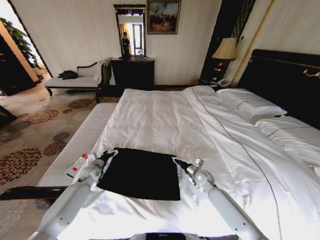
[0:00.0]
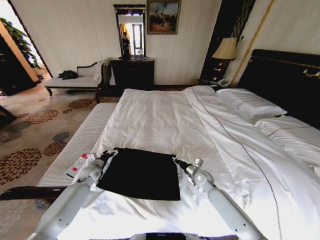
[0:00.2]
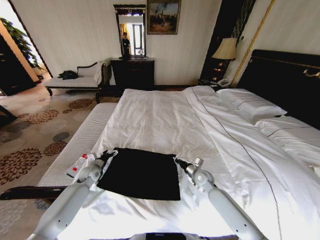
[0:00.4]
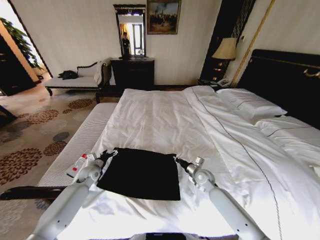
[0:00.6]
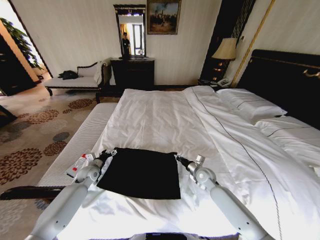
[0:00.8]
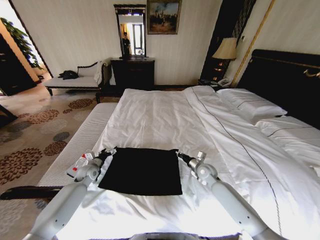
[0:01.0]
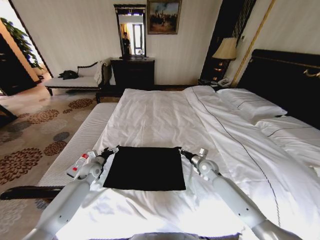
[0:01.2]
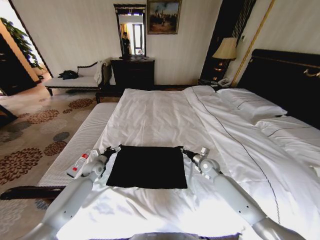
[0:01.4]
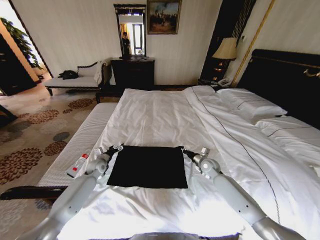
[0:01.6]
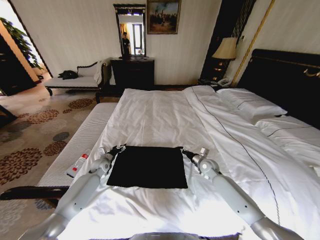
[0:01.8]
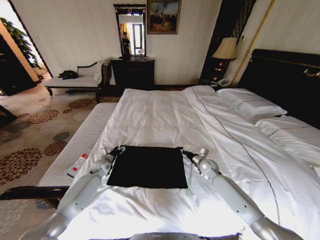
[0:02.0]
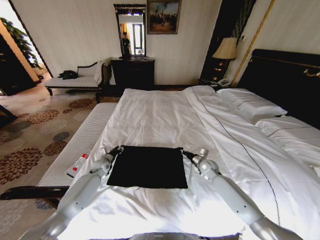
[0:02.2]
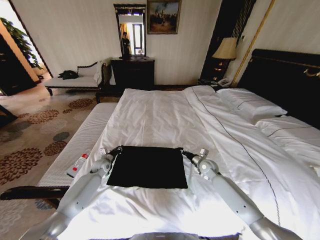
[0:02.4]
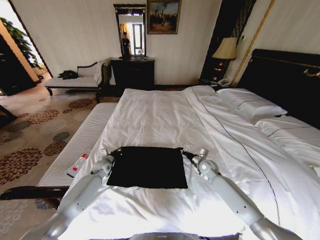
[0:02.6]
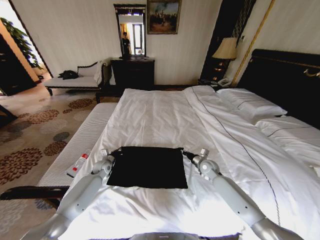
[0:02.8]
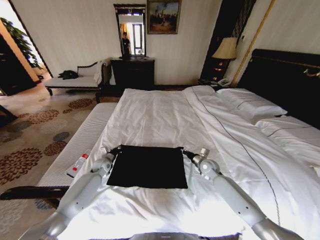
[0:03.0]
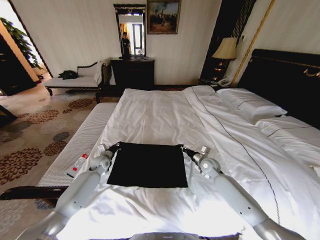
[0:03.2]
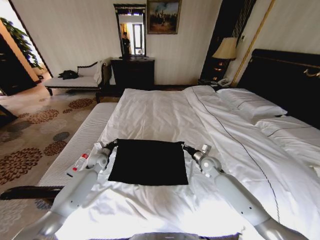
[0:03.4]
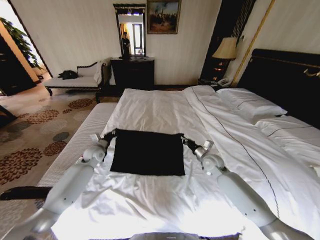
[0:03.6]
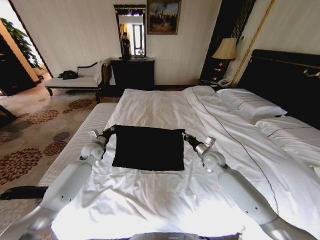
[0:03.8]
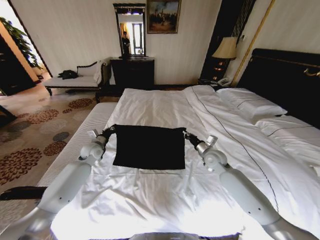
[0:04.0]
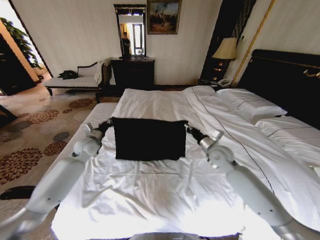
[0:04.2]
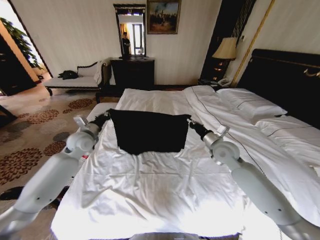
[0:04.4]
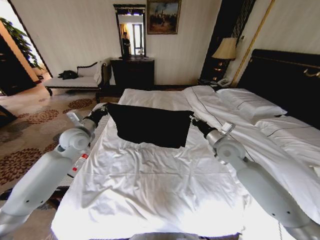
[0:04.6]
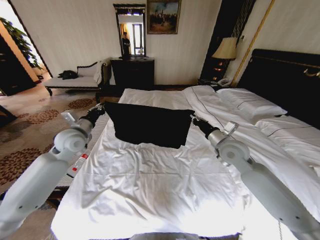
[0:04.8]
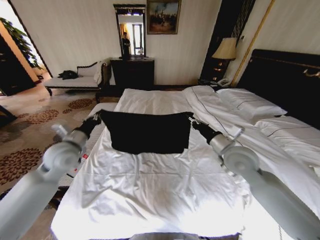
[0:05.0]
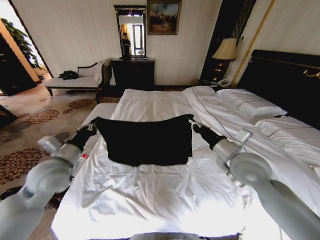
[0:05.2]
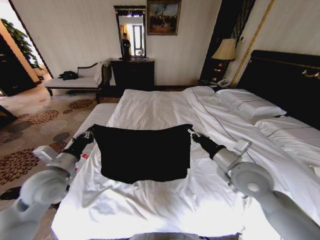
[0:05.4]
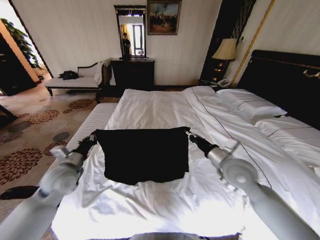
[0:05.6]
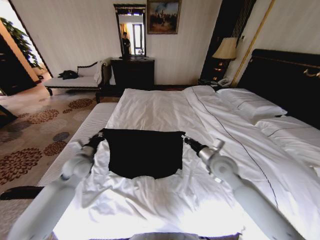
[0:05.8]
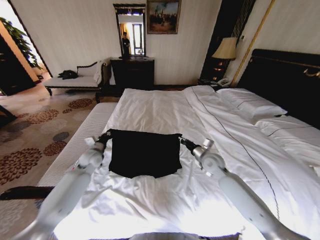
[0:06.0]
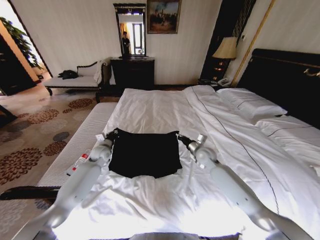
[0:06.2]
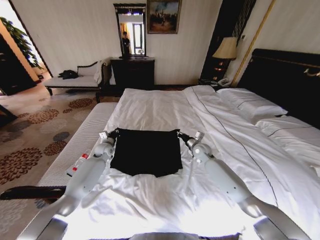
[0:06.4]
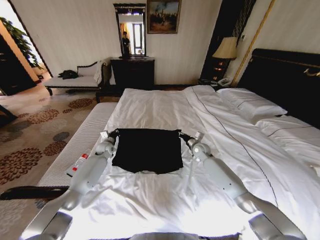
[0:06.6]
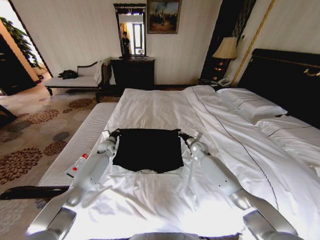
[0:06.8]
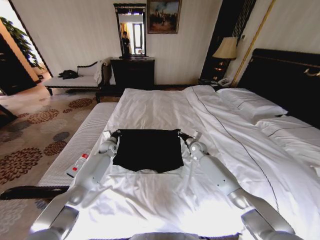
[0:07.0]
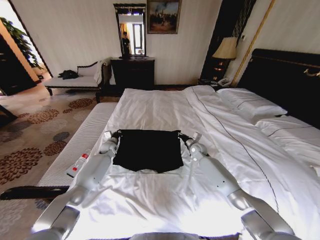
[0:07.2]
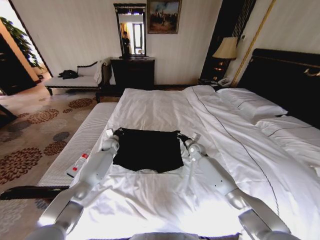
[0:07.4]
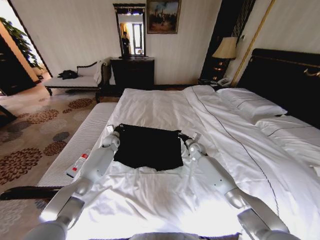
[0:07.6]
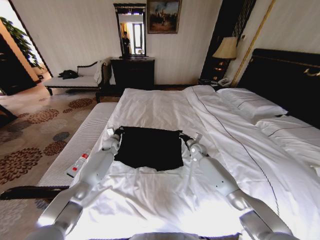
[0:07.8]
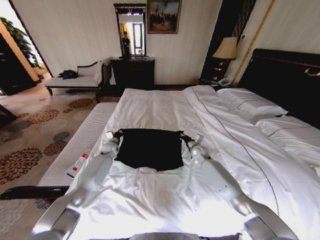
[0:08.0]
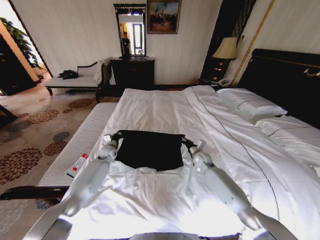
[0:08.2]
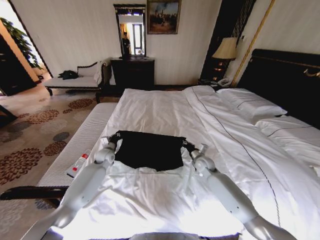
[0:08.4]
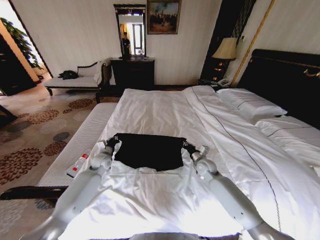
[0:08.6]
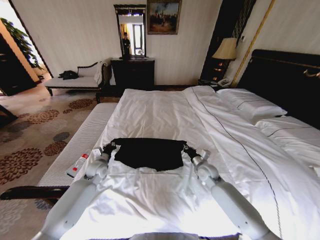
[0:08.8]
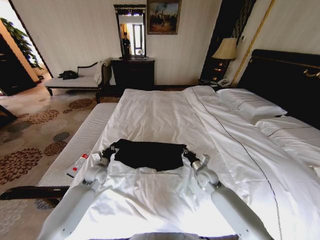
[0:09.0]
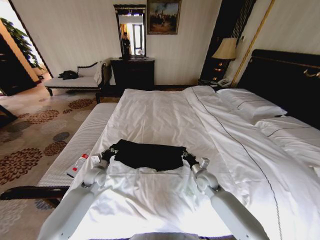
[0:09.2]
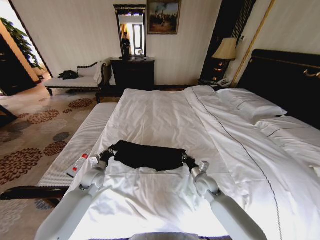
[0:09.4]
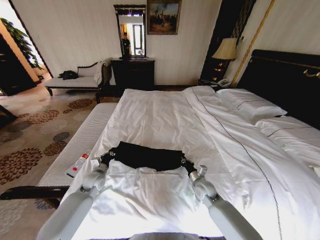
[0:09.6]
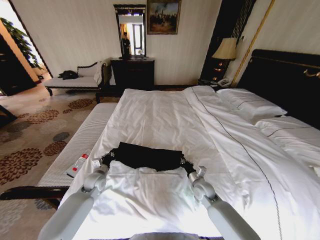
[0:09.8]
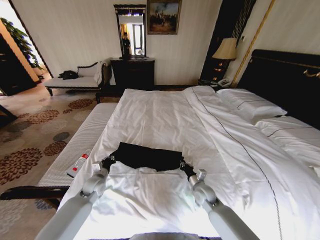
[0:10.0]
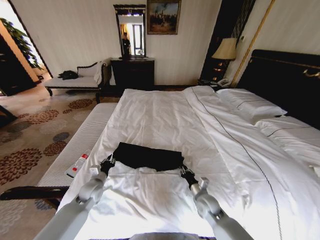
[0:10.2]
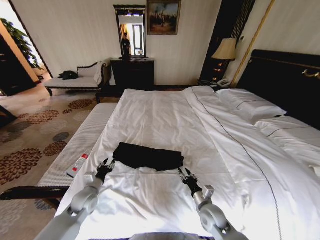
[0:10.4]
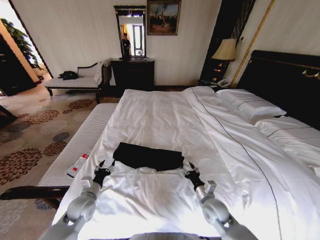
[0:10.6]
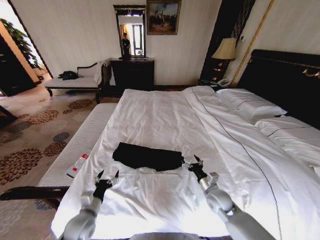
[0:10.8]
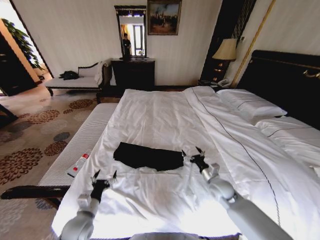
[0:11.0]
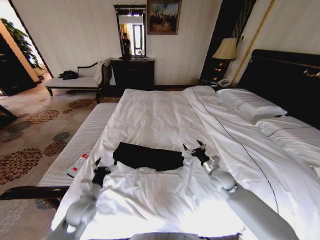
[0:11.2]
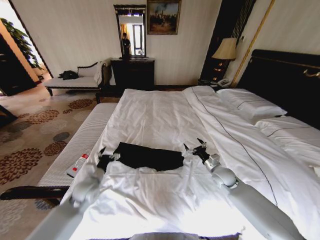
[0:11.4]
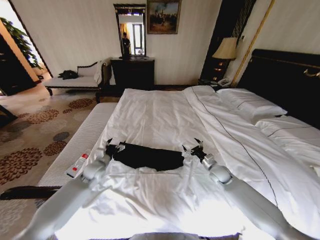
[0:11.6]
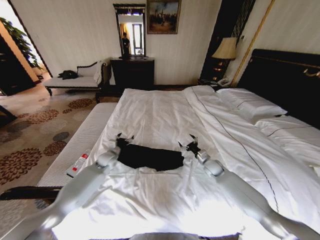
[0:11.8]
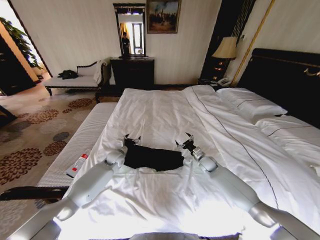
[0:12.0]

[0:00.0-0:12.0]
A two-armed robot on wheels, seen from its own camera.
Task of the whole recording: Fold the clothes on the bed.
0:00.0 to 0:01.6: The right gripper is displaced forward by some 5 cm, and closes.
0:01.6 to 0:03.0: The left gripper closes its fingers.
0:03.0 to 0:04.4: Both grippers move upward, roughly 20 cm.
0:04.4 to 0:06.0: The left gripper goes about 10 cm downward, and reaches roughly 20 cm backward, then returns. Meanwhile the right gripper is displaced downward by about 10 cm.
0:06.0 to 0:07.6: The right gripper moves forward and downward, roughly 15 cm. Meanwhile the left gripper heads forward, covering some 15 cm.
0:07.6 to 0:09.0: Both grippers move backward, about 15 cm.
0:09.0 to 0:10.4: Both grippers move backward, some 15 cm. The right gripper opens its fingers. The left gripper opens.
0:10.4 to 0:12.0: The left gripper goes about 25 cm forward and to the right, and opens up, while the right gripper goes approximately 25 cm forward, and opens.

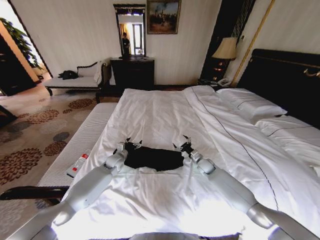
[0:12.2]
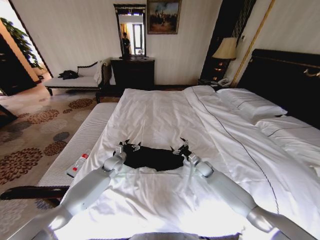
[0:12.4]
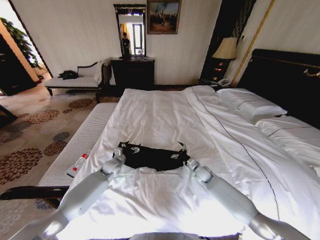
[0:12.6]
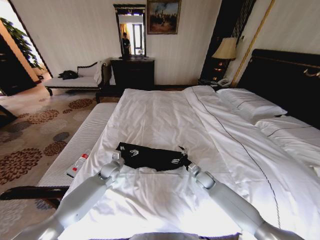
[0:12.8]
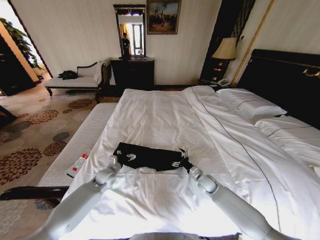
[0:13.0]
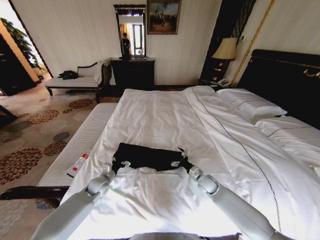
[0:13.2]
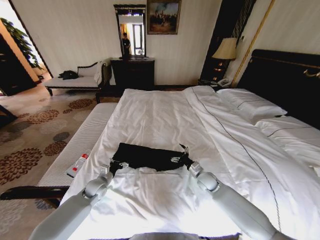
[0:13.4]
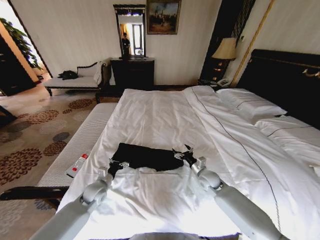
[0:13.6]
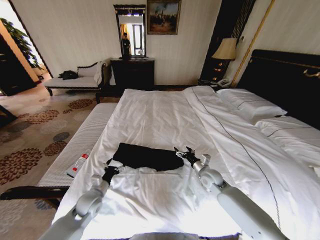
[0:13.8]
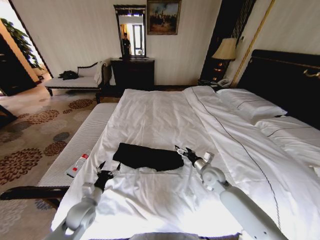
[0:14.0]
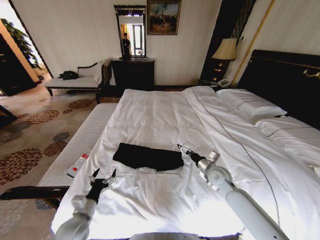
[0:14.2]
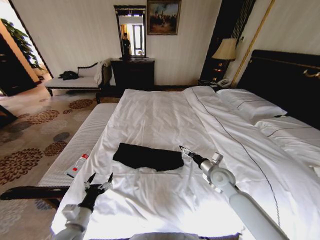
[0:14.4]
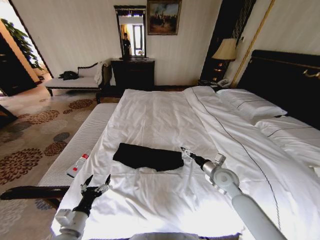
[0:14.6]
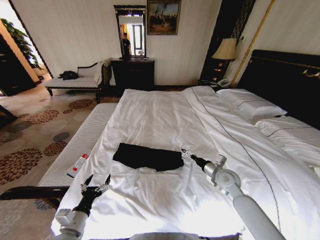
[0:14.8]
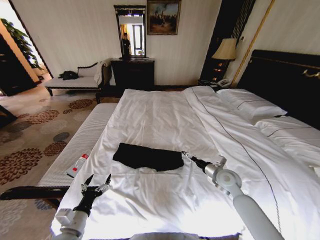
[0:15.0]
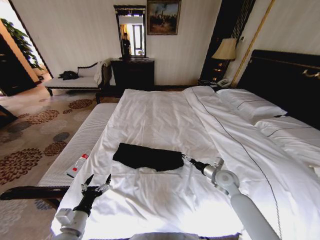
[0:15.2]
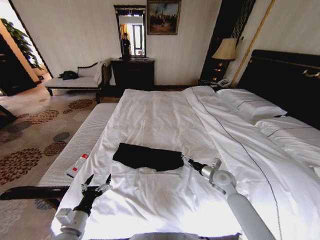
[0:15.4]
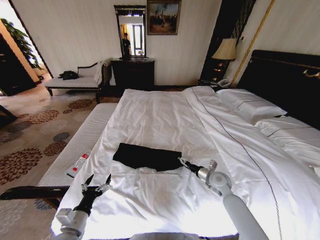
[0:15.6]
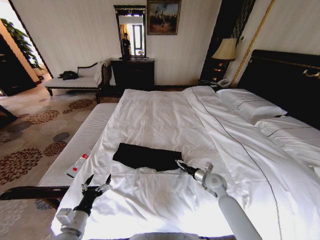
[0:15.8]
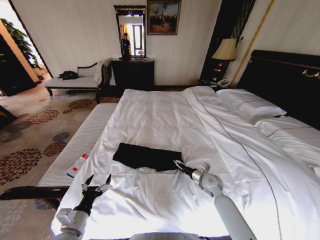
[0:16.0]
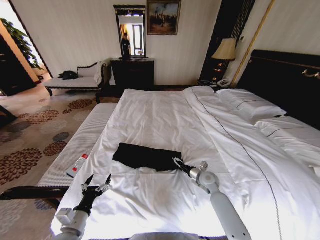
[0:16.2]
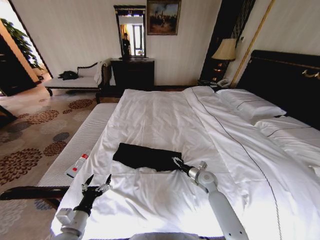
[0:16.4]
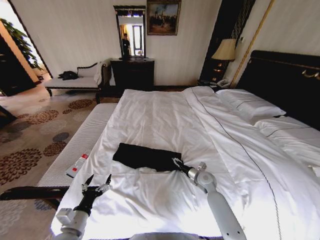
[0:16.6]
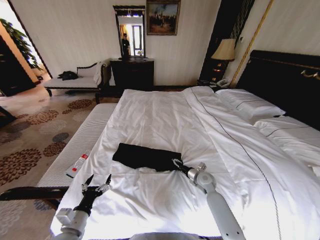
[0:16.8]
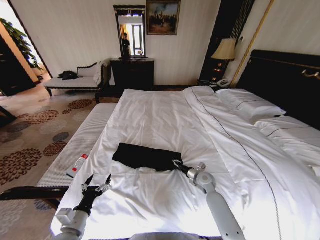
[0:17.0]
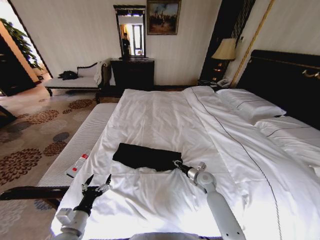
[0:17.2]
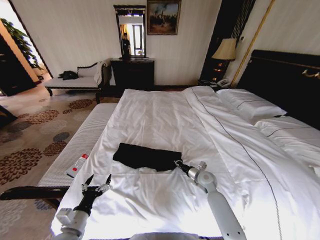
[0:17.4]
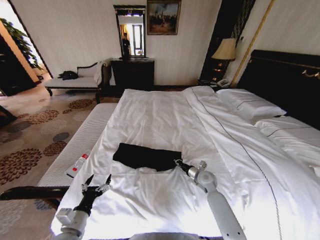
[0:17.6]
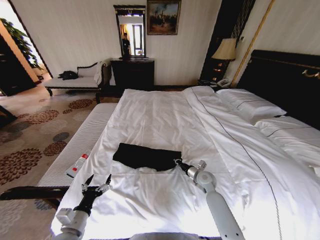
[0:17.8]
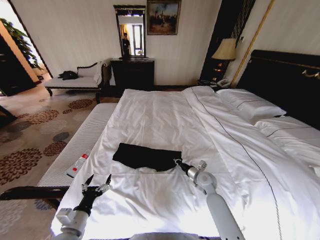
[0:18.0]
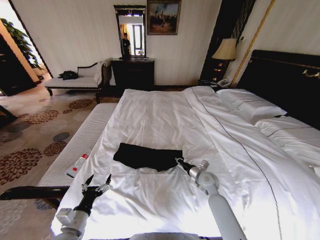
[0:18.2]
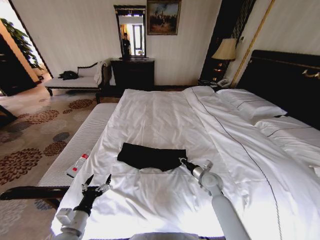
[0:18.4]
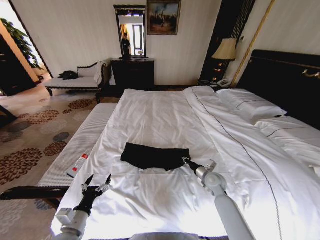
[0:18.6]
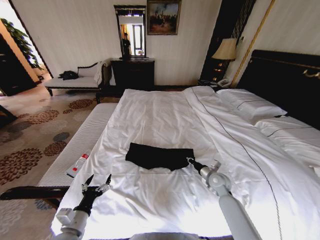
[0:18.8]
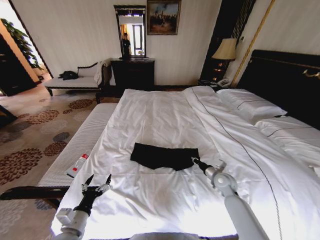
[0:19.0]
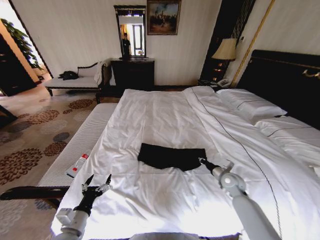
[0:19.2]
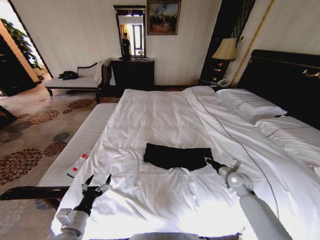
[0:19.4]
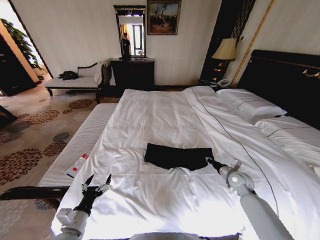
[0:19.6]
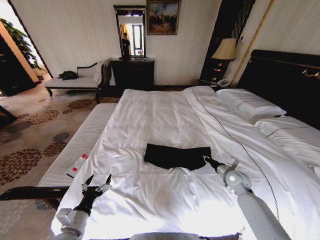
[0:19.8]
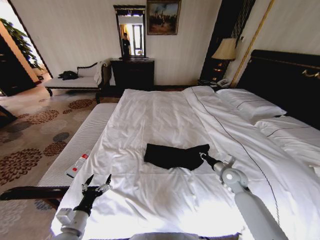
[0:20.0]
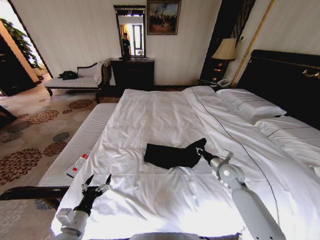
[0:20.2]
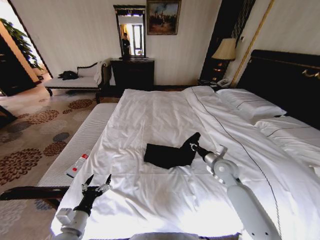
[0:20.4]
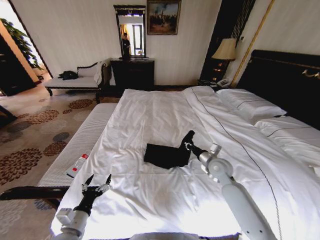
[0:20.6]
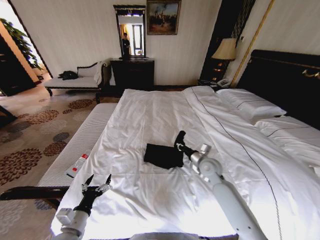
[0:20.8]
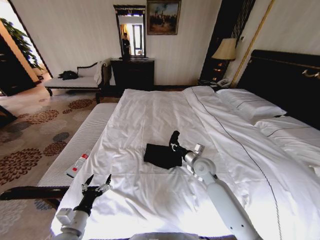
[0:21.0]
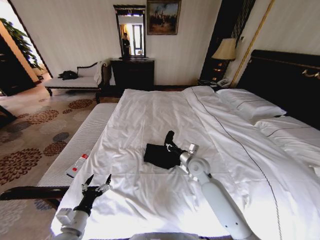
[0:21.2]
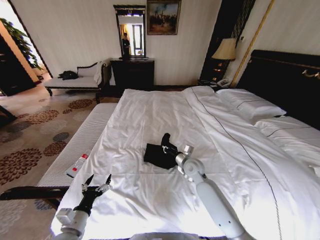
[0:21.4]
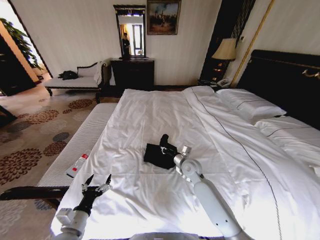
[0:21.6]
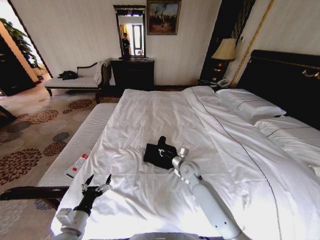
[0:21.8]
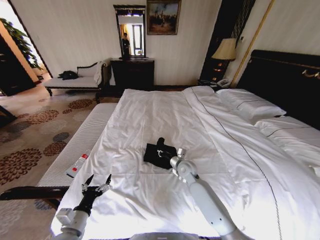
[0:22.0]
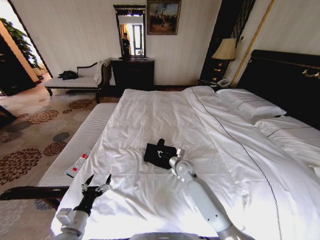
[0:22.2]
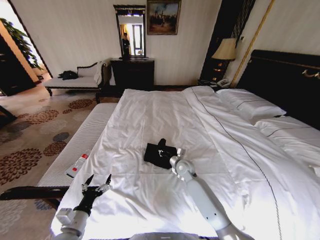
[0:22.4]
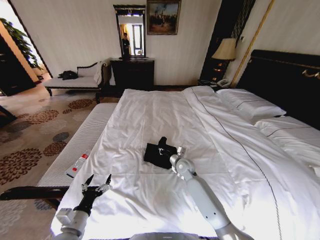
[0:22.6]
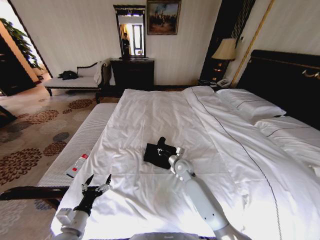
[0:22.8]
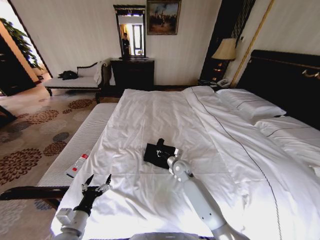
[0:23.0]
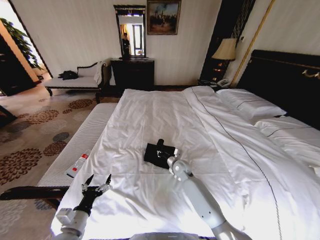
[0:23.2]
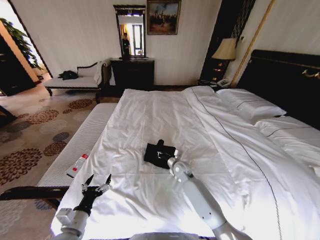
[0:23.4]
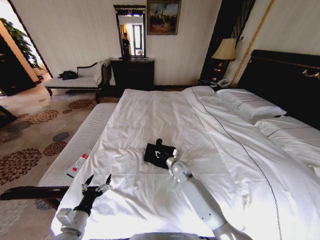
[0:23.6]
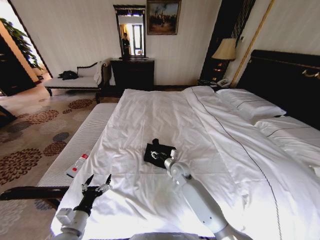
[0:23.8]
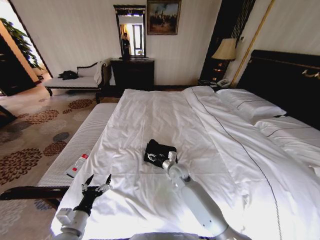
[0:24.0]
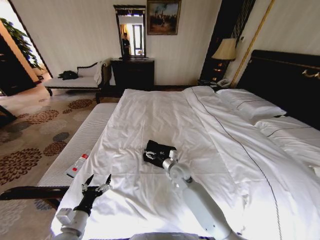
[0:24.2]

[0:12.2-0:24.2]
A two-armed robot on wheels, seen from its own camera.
Task of the whole recording: Fold the clothes on the bed.
0:12.2 to 0:13.8: The right gripper heads backward and upward, covering about 10 cm. The left gripper is displaced backward by approximately 20 cm.
0:13.8 to 0:15.2: The left gripper heads backward, covering some 15 cm; the right gripper moves to the right, about 5 cm.
0:15.2 to 0:16.6: The right gripper goes some 10 cm downward and to the left.
0:16.6 to 0:18.2: The right gripper closes its fingers.
0:18.2 to 0:19.8: The right gripper travels to the right by about 15 cm.
0:19.8 to 0:21.2: The right gripper goes some 20 cm to the left.
0:21.2 to 0:22.6: The right gripper is displaced downward by roughly 5 cm.
0:22.6 to 0:24.2: The right gripper ends up some 5 cm from where it was, and opens up.
